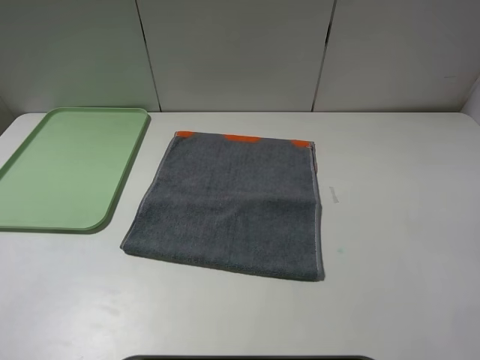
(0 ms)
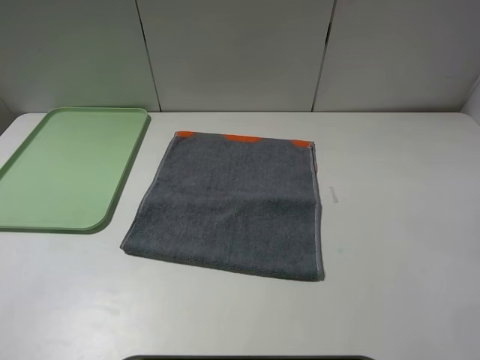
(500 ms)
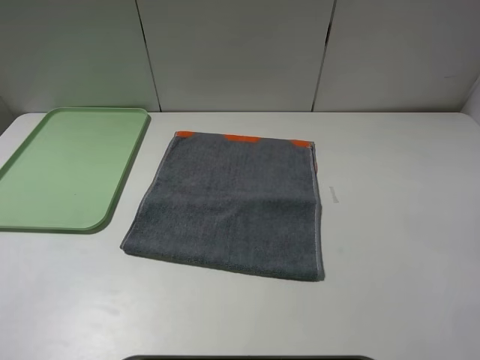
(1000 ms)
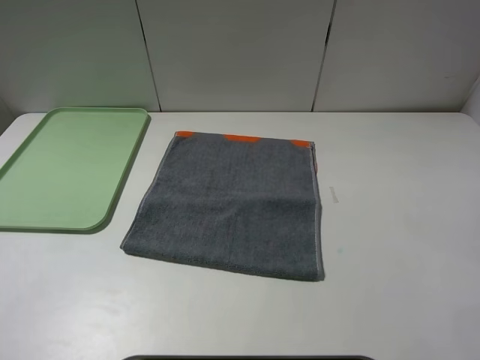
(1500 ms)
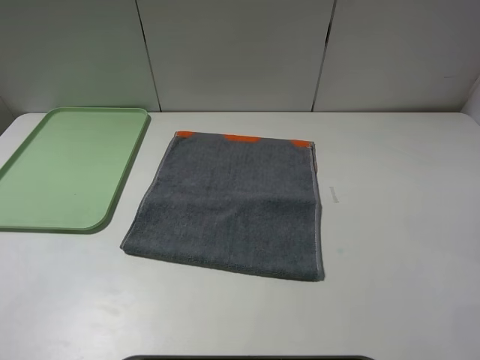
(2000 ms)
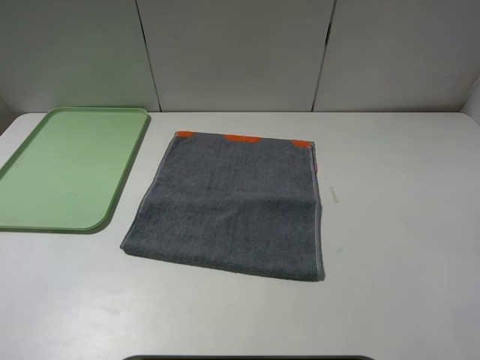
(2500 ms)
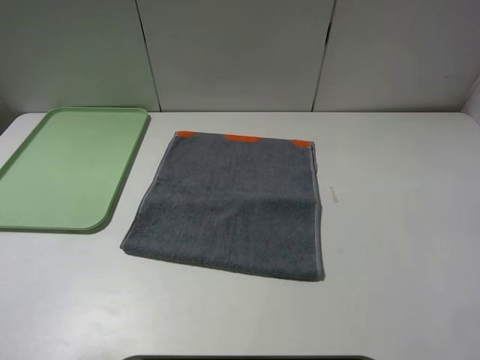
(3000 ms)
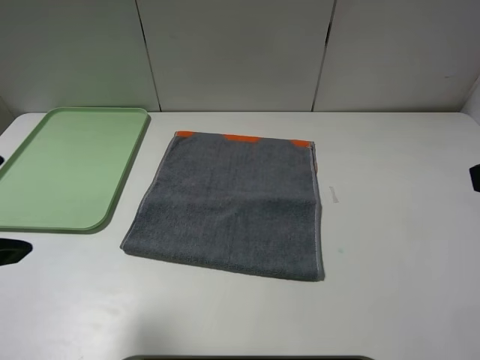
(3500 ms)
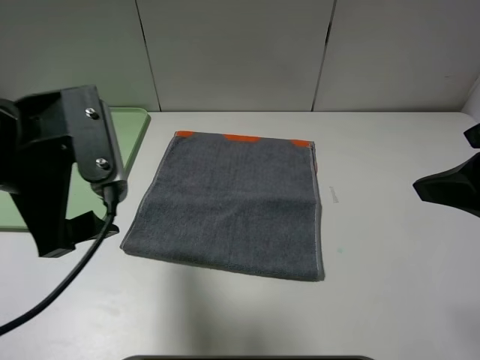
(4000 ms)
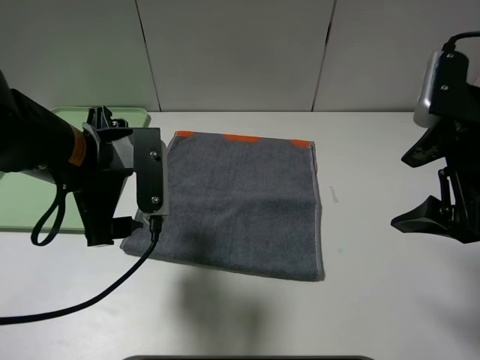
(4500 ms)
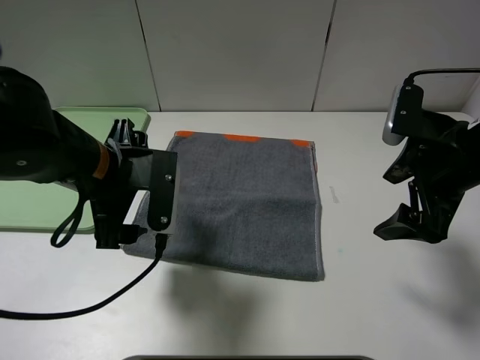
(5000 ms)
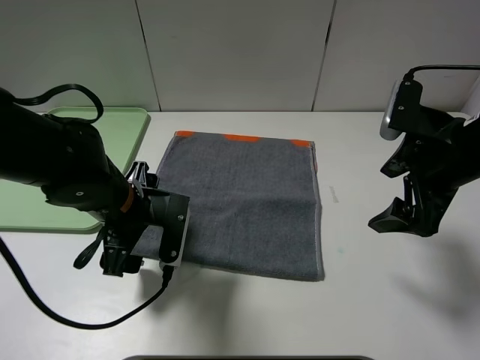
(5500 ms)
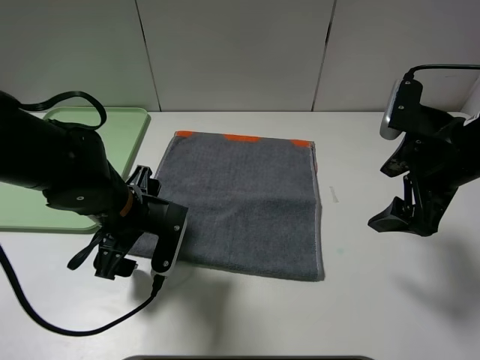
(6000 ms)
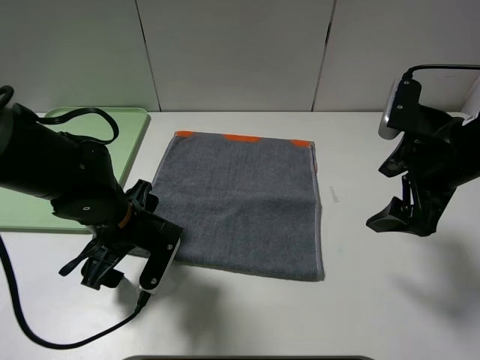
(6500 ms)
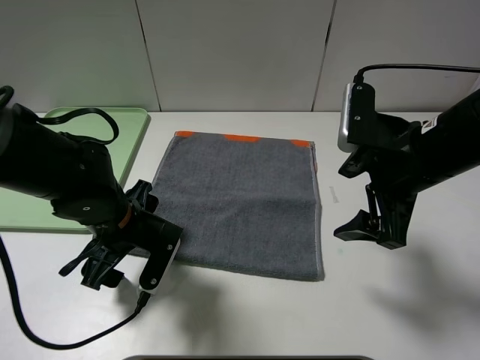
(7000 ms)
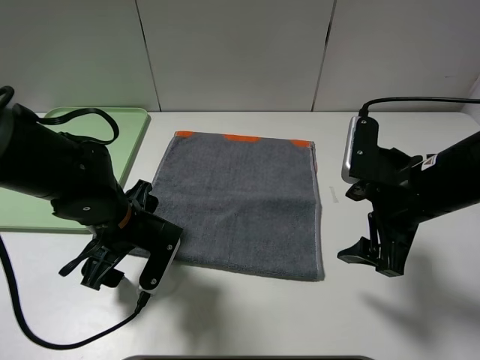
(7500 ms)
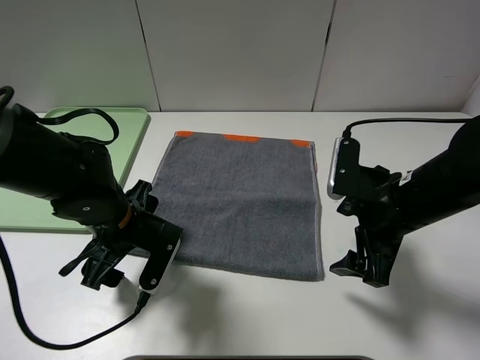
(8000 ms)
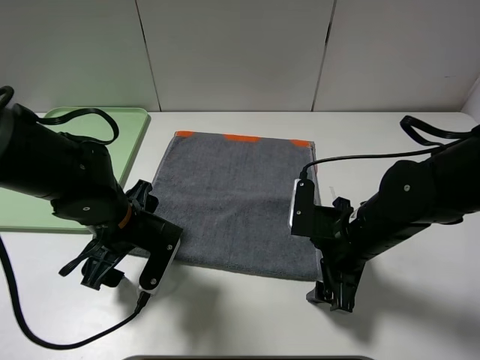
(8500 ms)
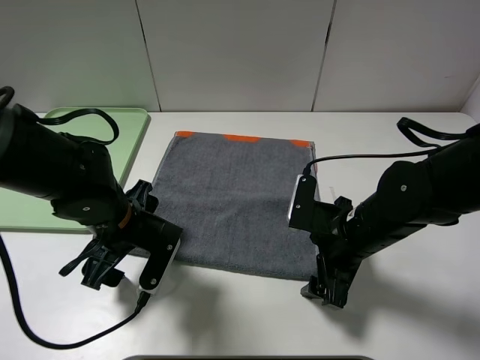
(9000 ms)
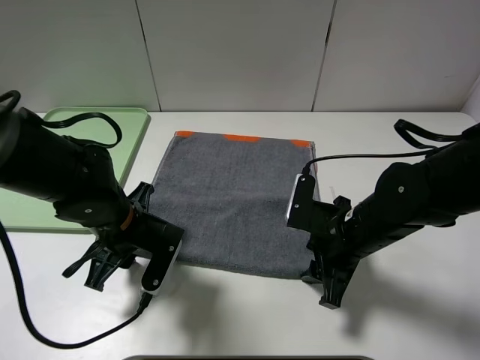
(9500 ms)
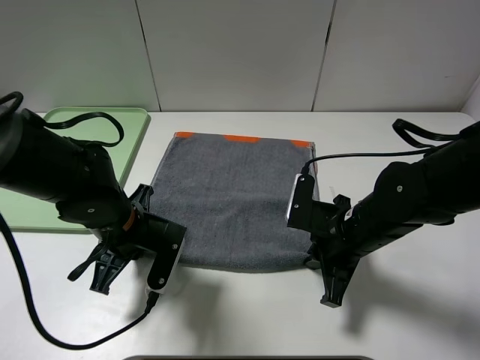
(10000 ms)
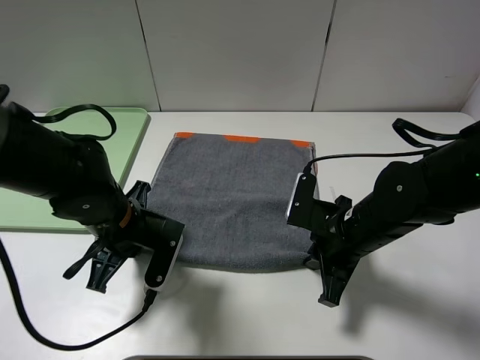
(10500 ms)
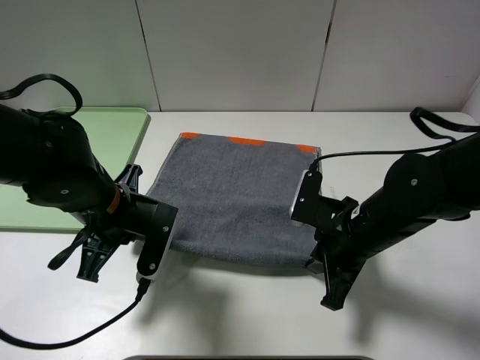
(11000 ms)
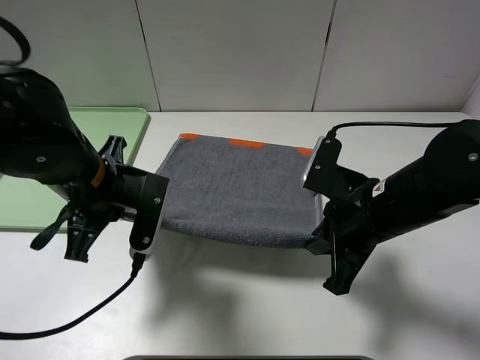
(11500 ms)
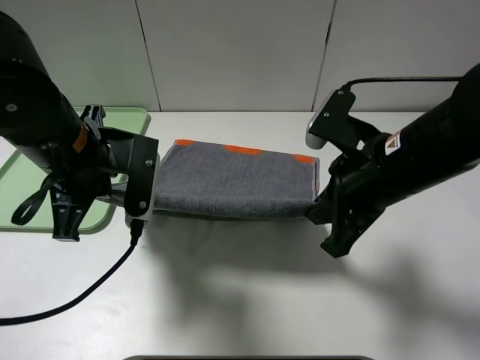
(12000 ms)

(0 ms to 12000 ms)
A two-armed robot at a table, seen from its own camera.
0 ms - 2000 ms: Both grippers stay about where they are.
2000 ms - 4000 ms: The right gripper is displaced forward by approximately 15 cm. Meanwhile the left gripper is displaced forward and to the right by about 20 cm.
4000 ms - 6000 ms: The left gripper heads downward, covering some 15 cm; the right gripper heads downward and forward, covering some 10 cm.
6000 ms - 8000 ms: The right gripper shifts roughly 10 cm downward and to the left.
8000 ms - 10000 ms: The left gripper closes, while the right gripper travels downward by about 5 cm, and closes its fingers.
10000 ms - 12000 ms: Both grippers travel together upward, some 15 cm.

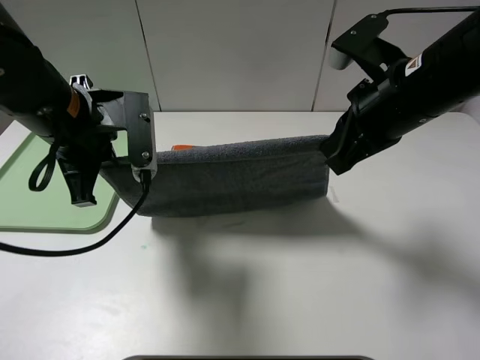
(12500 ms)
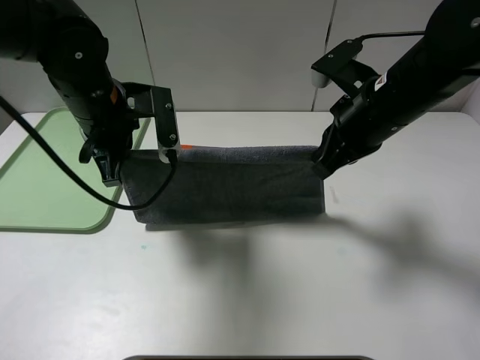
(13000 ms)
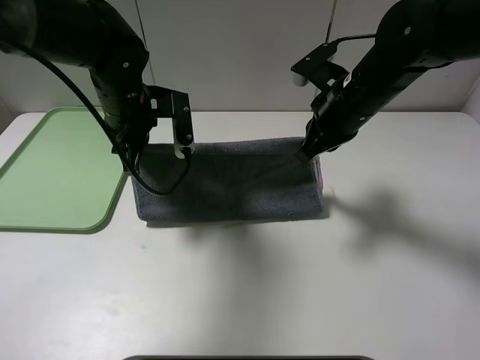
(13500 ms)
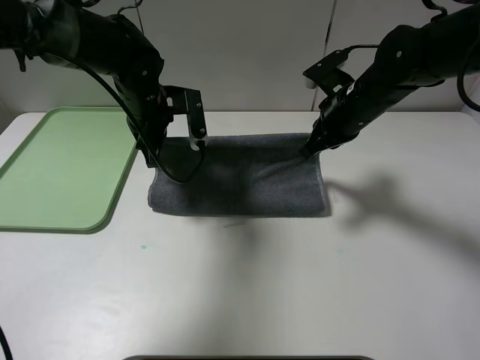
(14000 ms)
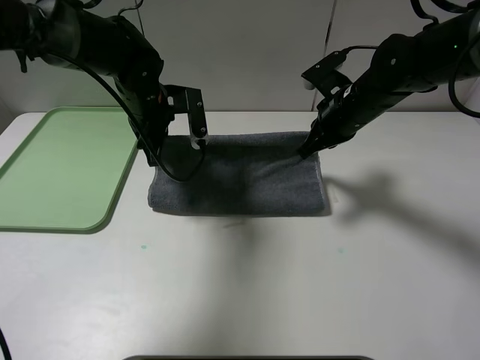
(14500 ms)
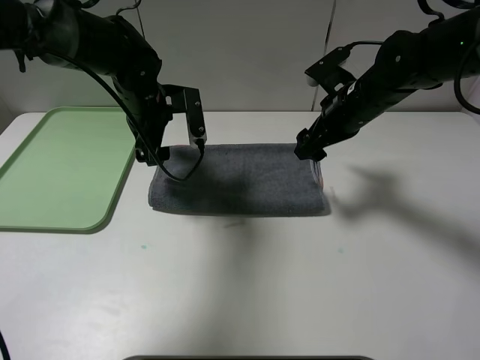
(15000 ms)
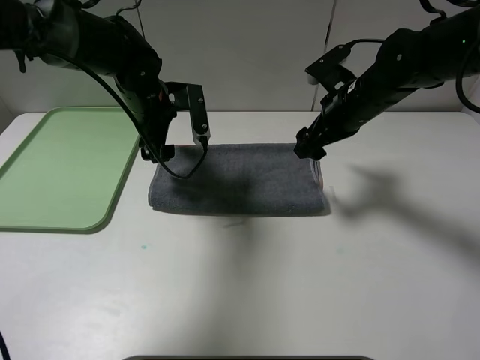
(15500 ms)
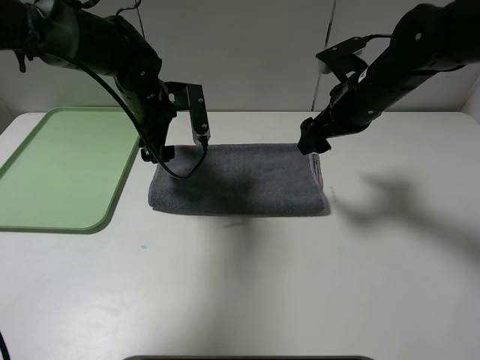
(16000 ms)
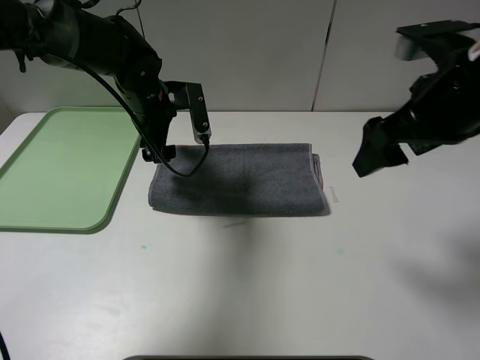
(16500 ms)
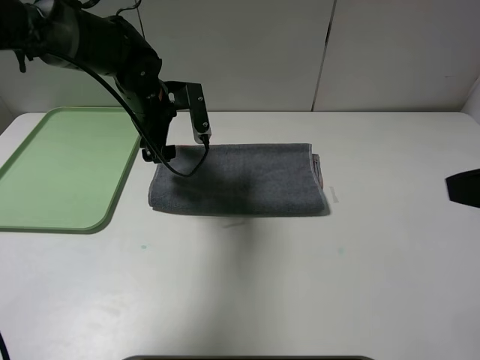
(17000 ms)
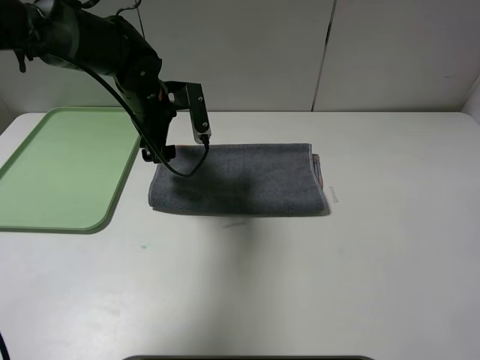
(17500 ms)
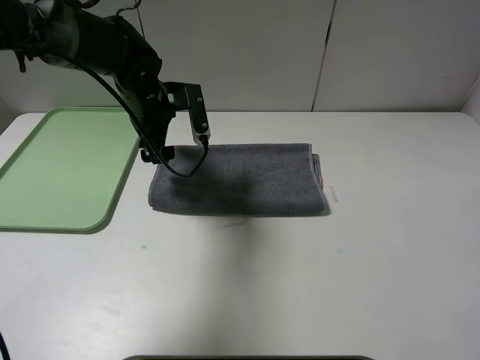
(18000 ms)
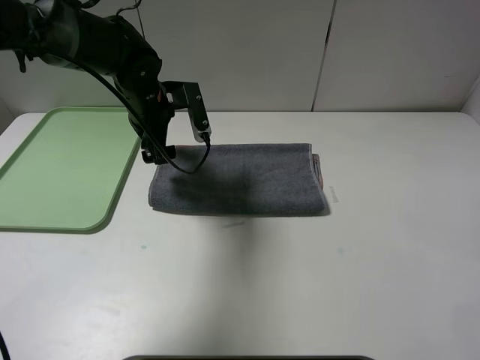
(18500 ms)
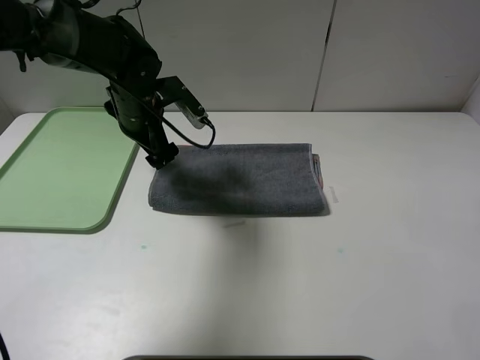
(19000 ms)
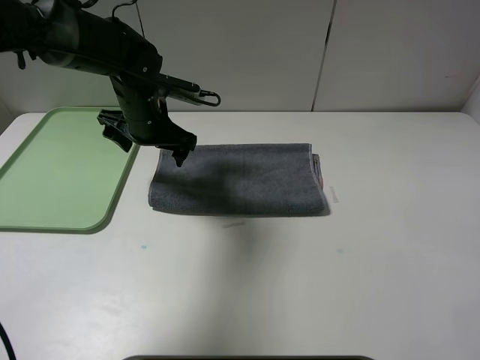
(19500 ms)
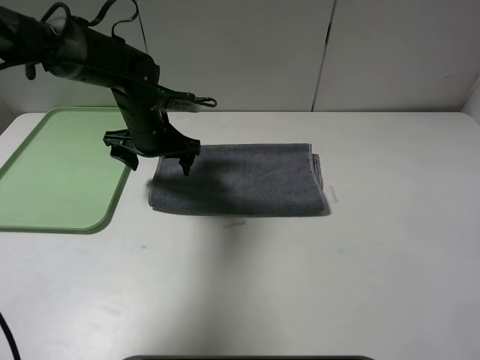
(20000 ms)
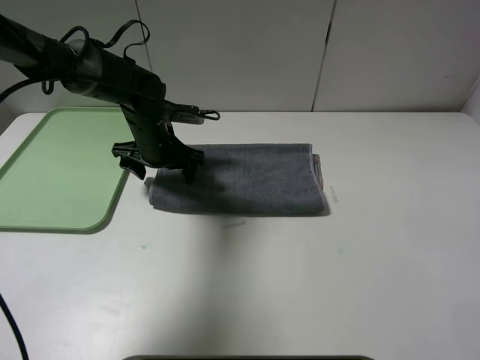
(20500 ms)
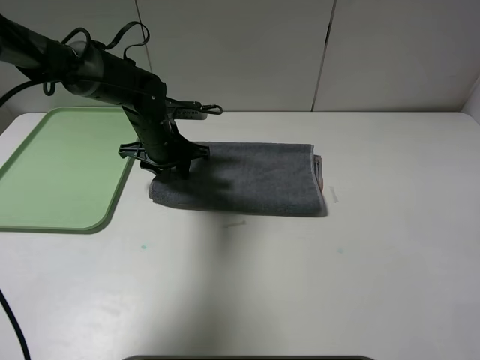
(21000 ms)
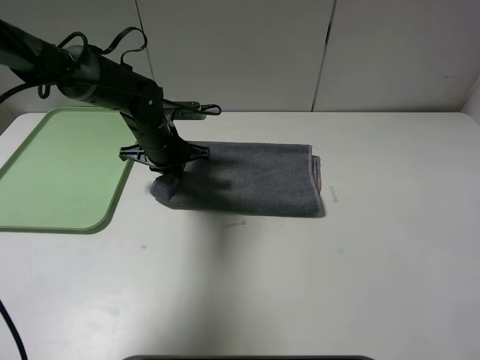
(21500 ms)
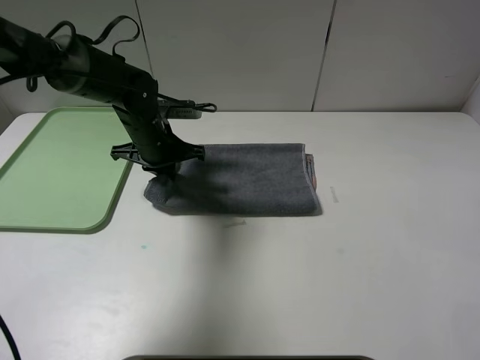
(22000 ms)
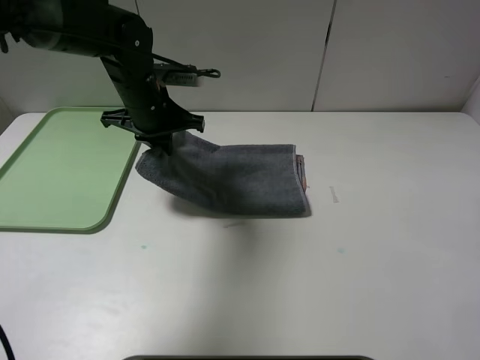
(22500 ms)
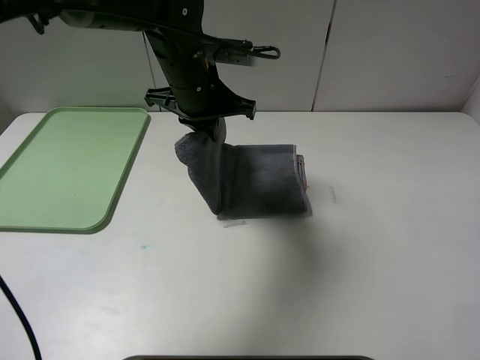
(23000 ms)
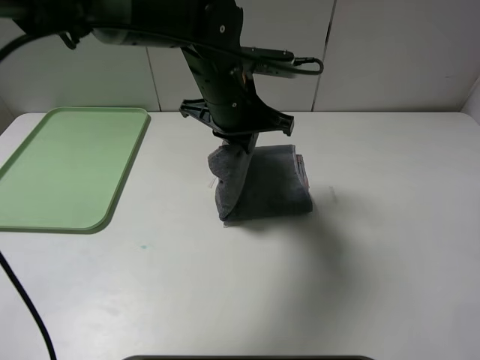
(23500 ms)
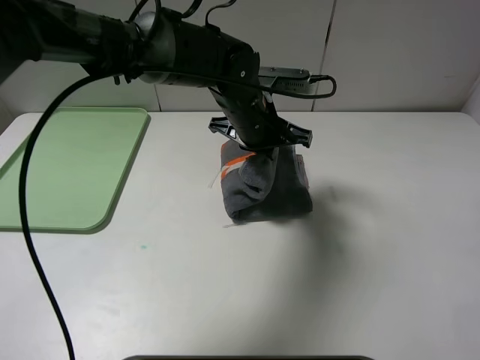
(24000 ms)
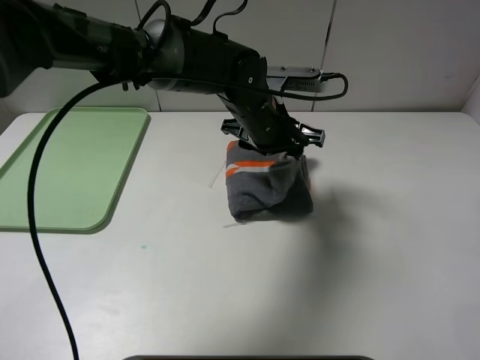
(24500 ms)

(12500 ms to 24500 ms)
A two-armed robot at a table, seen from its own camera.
Step, 12500 ms - 14500 ms: Fold the grey towel upwards.
12500 ms - 14500 ms: Both grippers travel together forward and downward, some 15 cm.
14500 ms - 16500 ms: The left gripper opens; the right gripper shifts roughly 20 cm backward and upward, and opens its fingers.
16500 ms - 18500 ms: The right gripper shifts approximately 25 cm backward.
18500 ms - 20500 ms: The left gripper goes approximately 5 cm downward.
20500 ms - 22500 ms: The left gripper goes roughly 10 cm upward, and closes its fingers.
22500 ms - 24500 ms: The left gripper heads to the right, covering roughly 15 cm, and opens up.

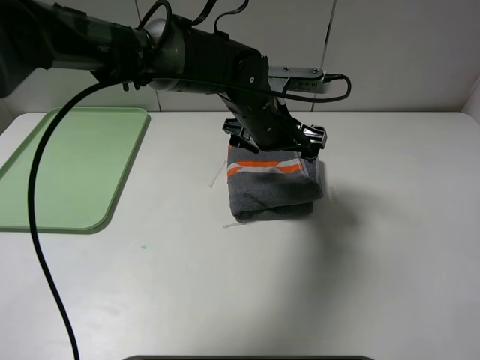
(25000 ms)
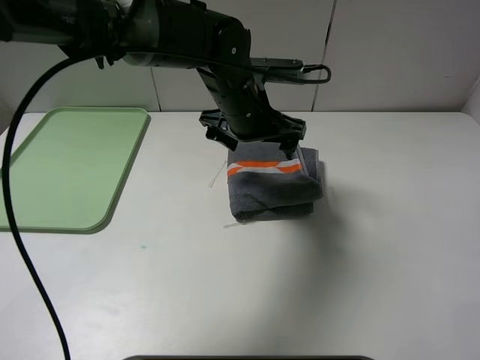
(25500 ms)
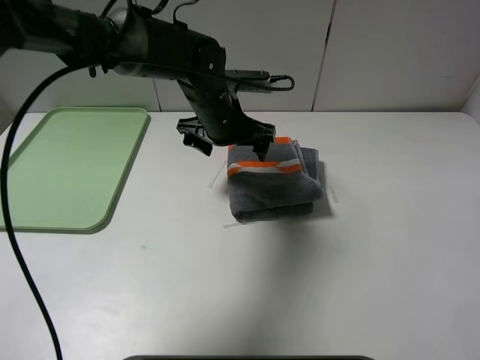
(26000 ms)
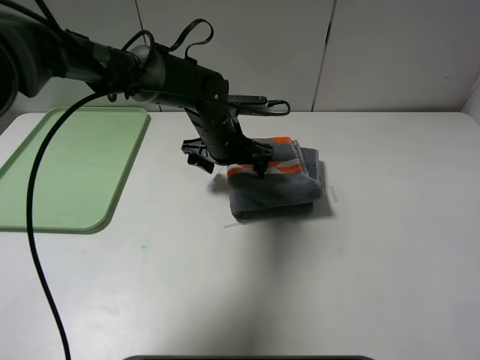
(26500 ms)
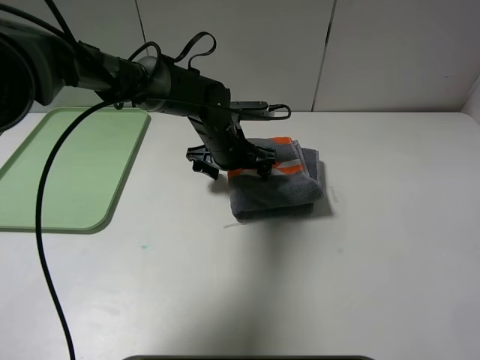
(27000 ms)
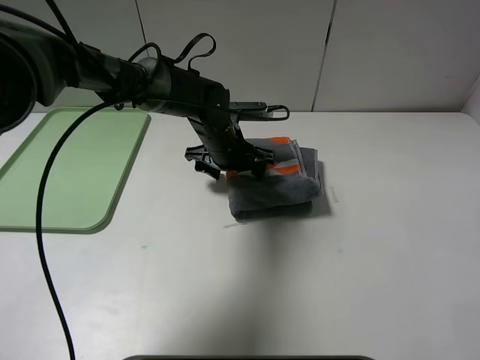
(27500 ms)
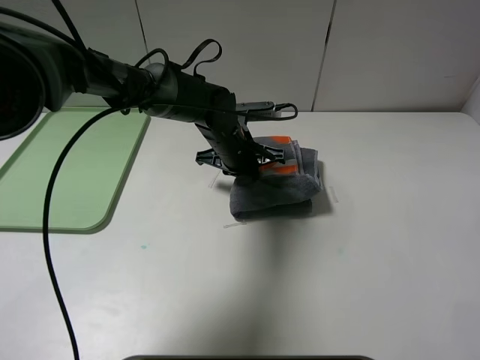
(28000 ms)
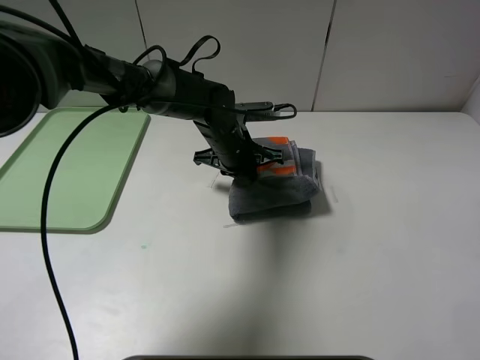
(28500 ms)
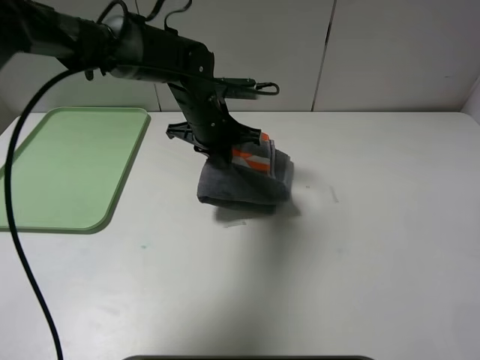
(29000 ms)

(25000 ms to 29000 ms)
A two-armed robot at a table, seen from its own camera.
25000 ms - 27000 ms: The left gripper moves downward and to the left, roughly 10 cm.
27000 ms - 29000 ms: The left gripper shifts approximately 5 cm upward, and closes its fingers.
